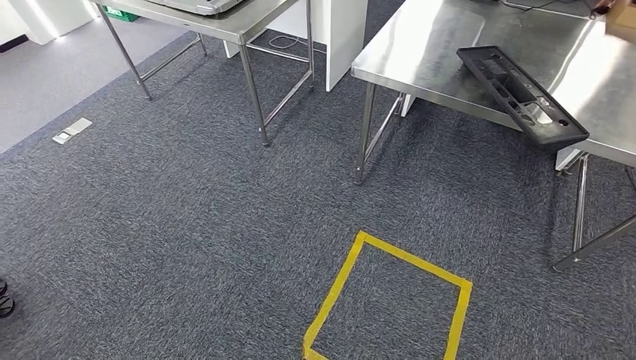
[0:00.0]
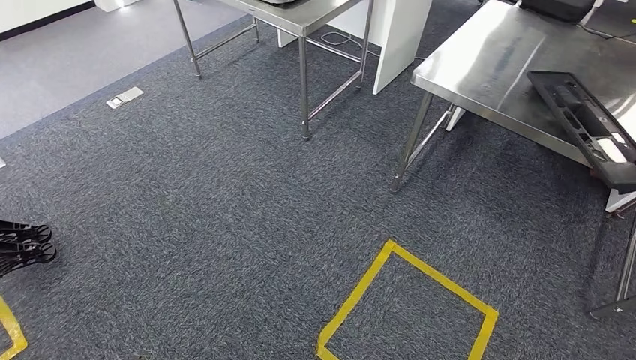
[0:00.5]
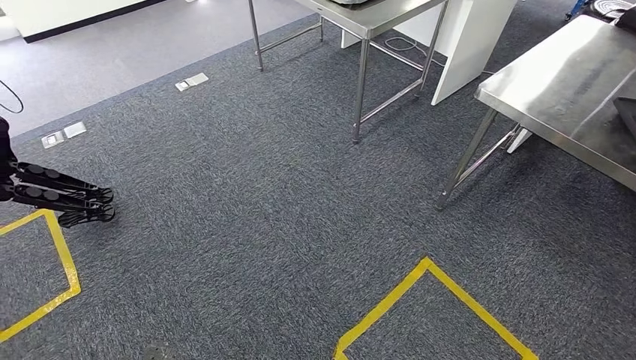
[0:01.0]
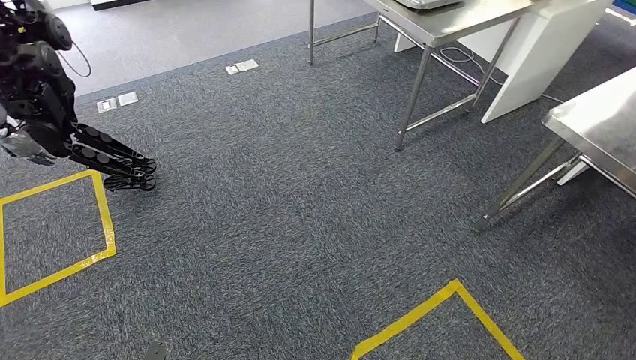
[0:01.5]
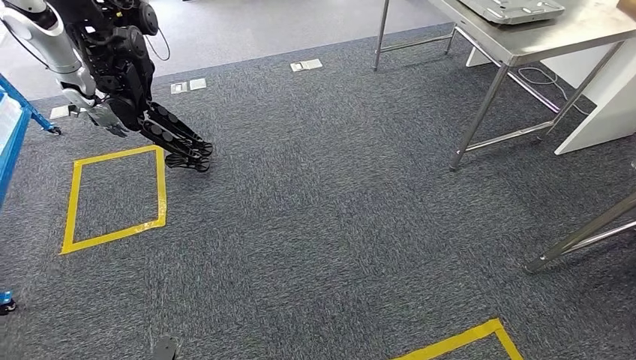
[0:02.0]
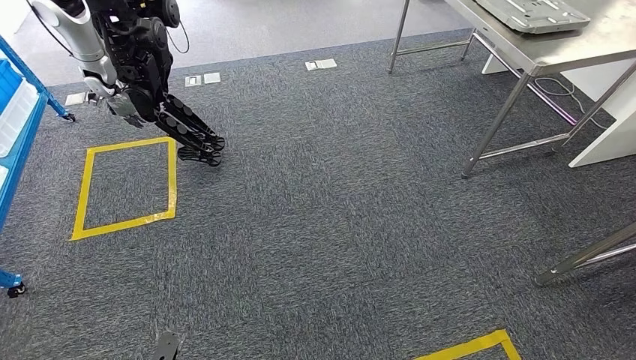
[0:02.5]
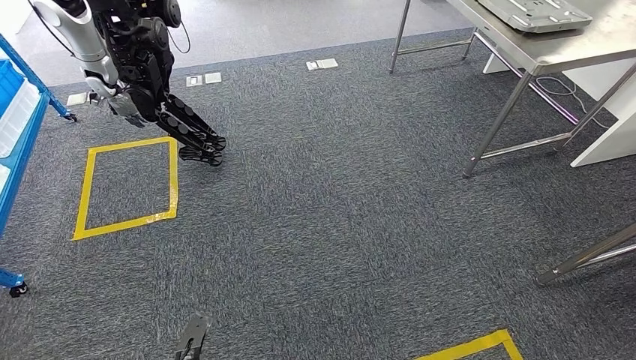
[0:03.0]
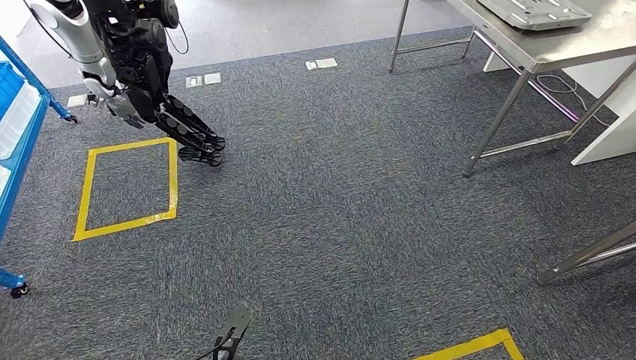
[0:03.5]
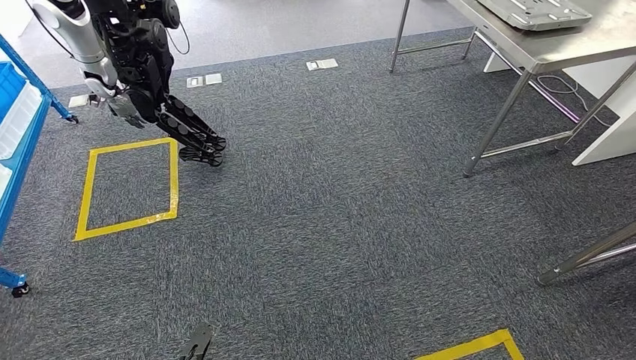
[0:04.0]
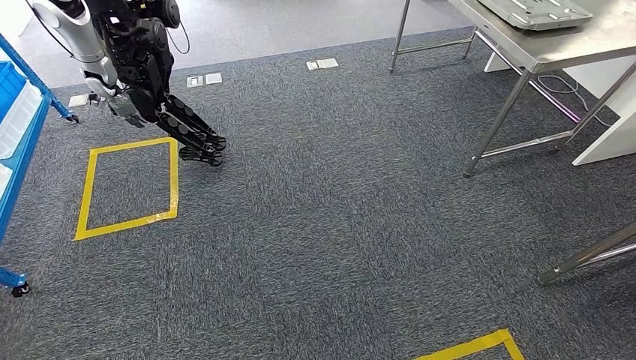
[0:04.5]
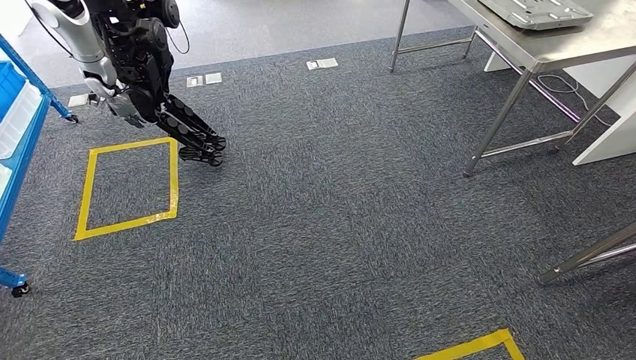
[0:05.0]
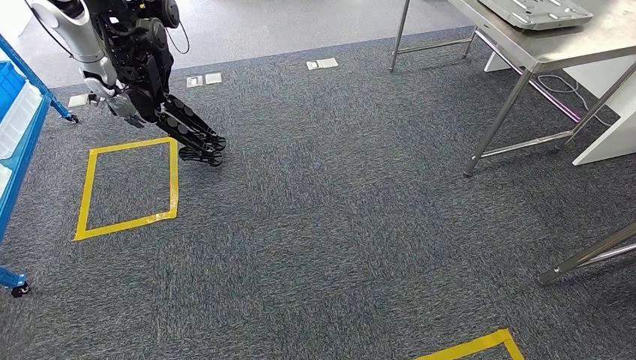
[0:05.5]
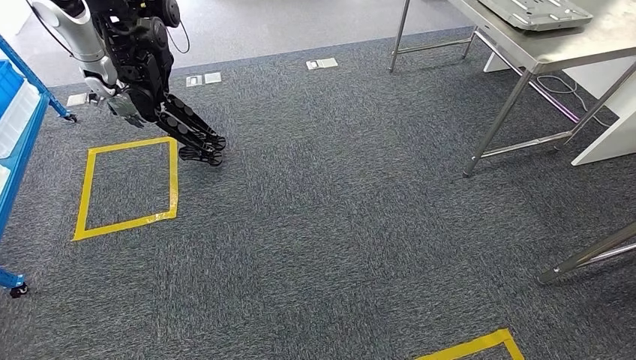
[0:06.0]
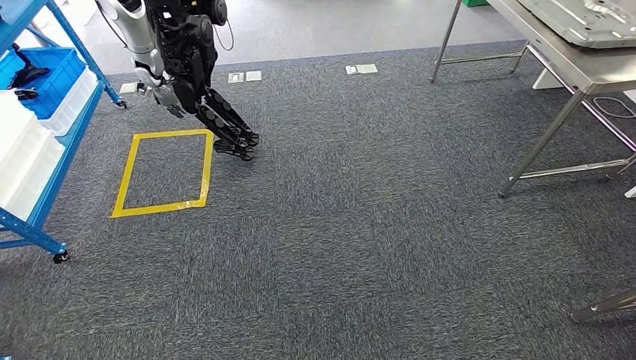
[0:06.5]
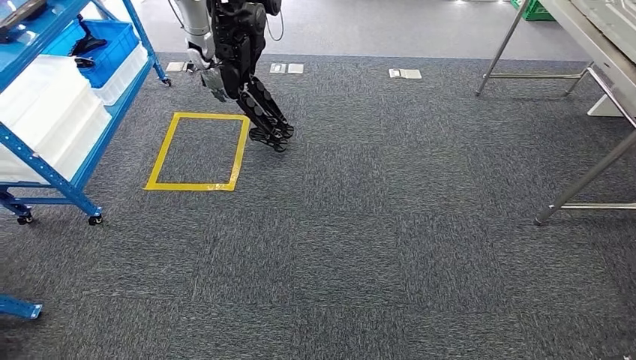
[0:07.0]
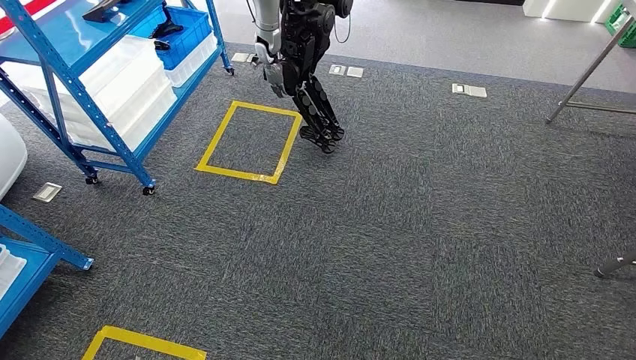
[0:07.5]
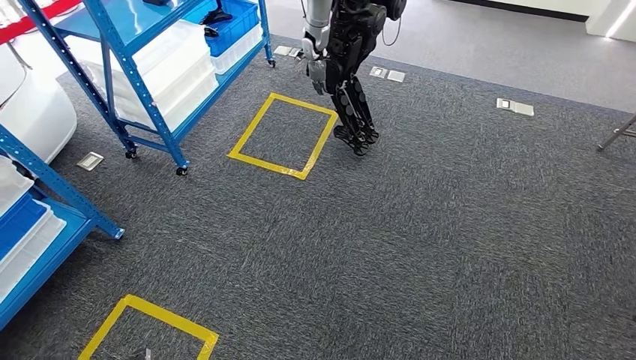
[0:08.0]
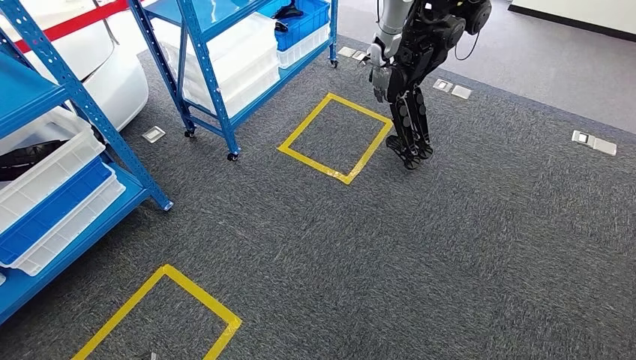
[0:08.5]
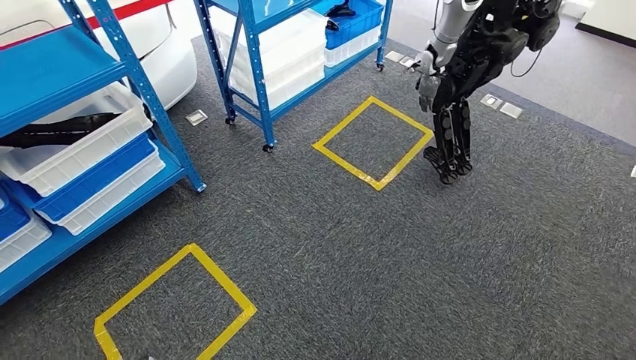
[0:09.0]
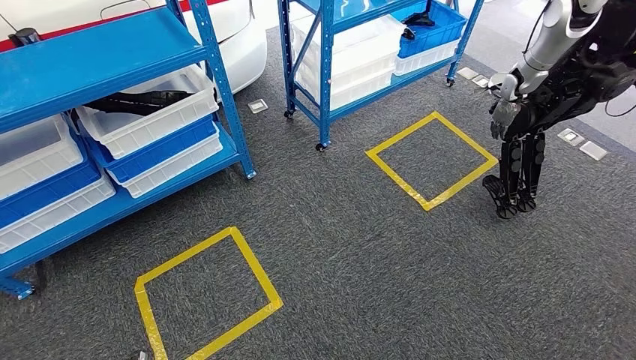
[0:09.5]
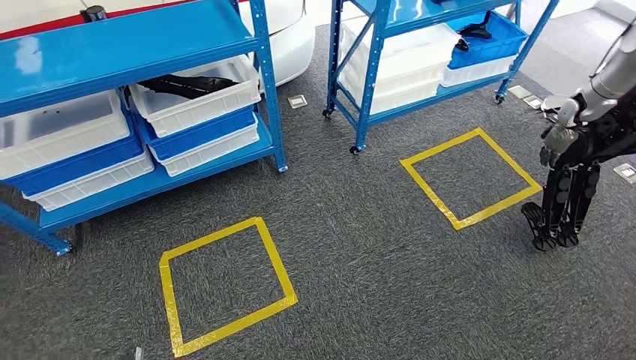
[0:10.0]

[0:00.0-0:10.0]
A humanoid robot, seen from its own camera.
0:04.0 to 0:06.0: The left hand shifts some 15 cm backward and to the left.

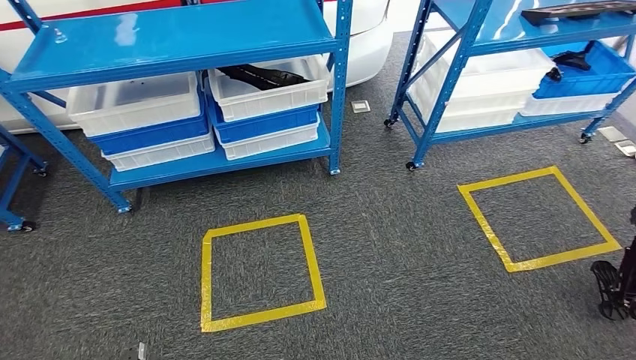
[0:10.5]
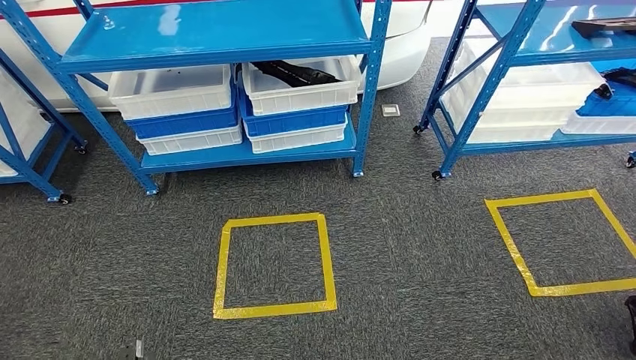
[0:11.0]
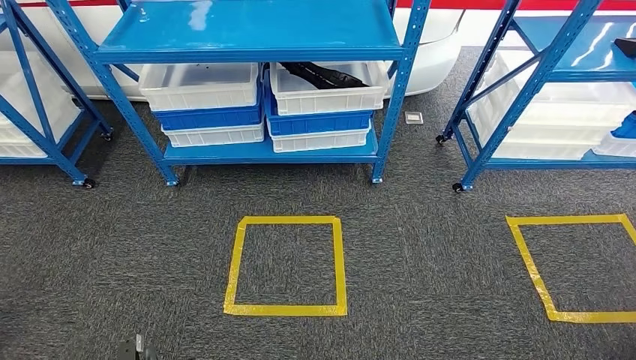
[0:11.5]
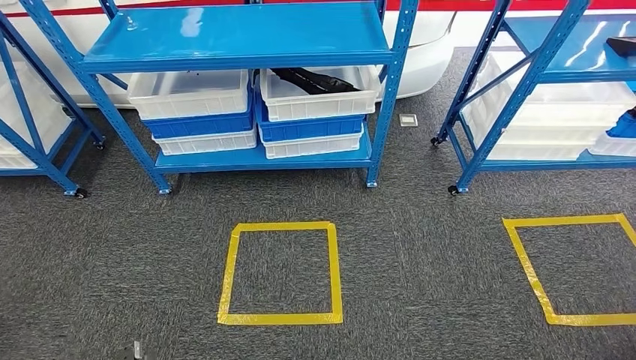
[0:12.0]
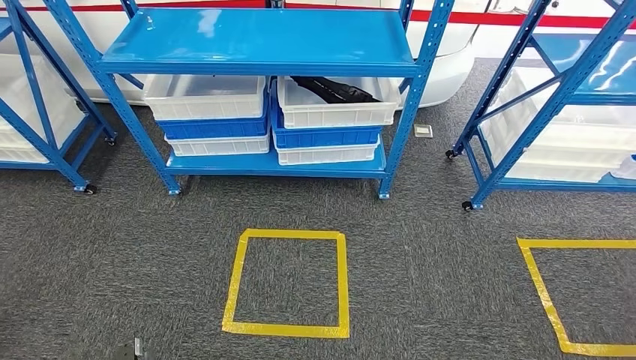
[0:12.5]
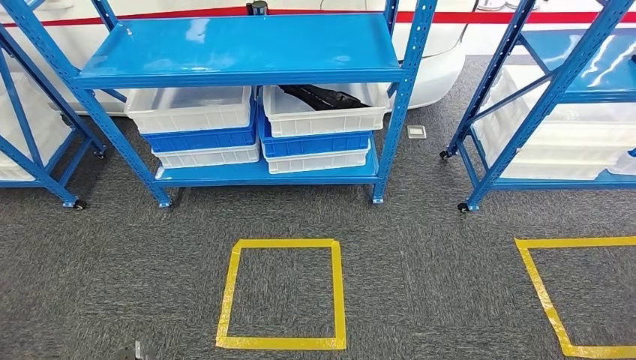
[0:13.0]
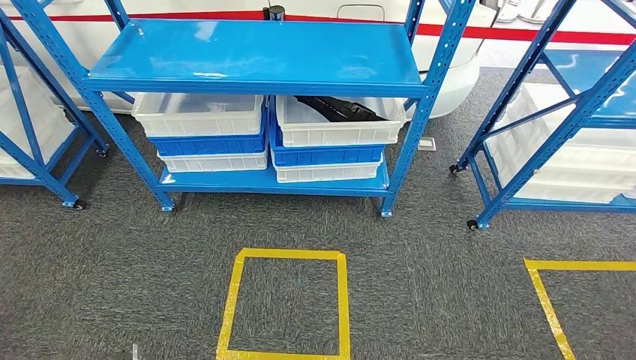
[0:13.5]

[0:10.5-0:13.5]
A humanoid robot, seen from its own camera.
Step, 0:10.5 to 0:13.5: Move to the initial position of the shelf.
